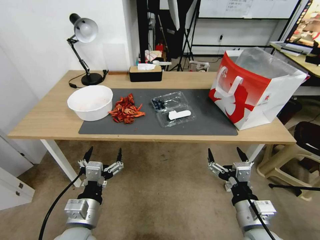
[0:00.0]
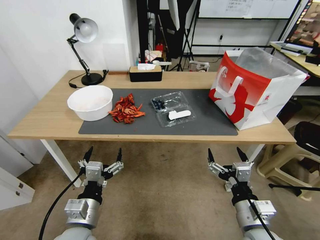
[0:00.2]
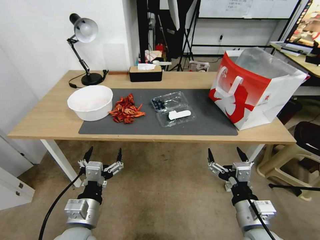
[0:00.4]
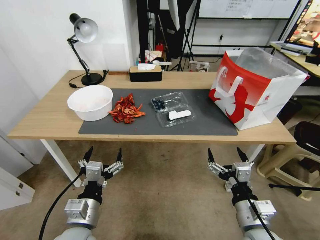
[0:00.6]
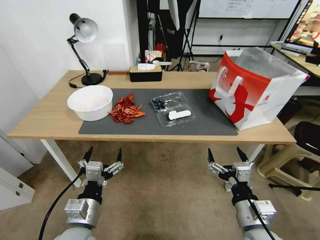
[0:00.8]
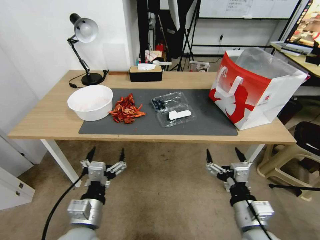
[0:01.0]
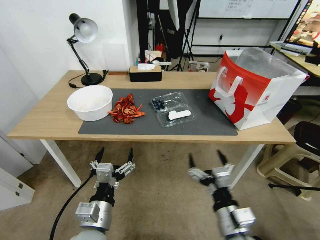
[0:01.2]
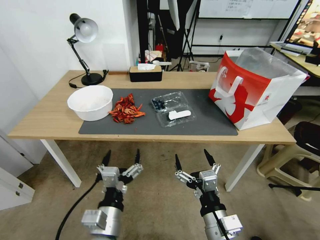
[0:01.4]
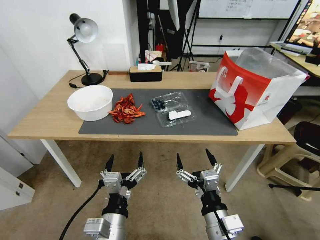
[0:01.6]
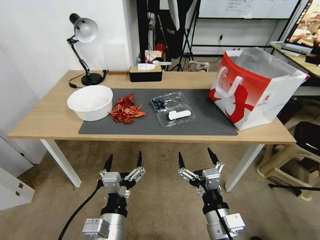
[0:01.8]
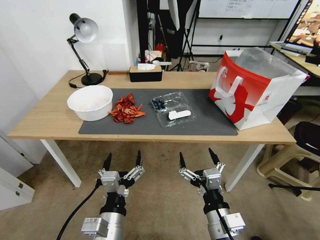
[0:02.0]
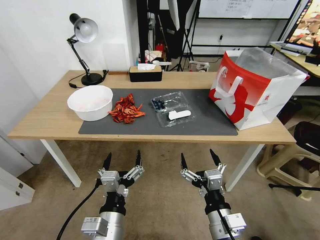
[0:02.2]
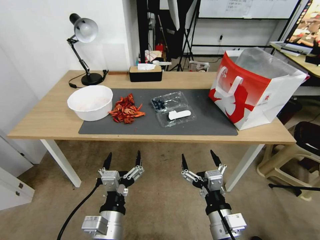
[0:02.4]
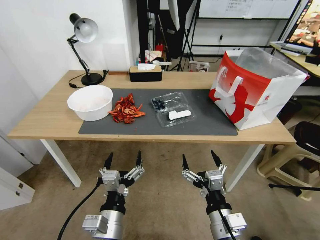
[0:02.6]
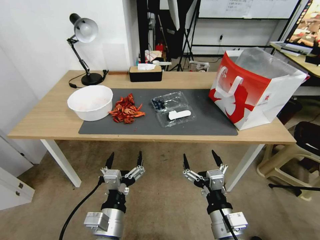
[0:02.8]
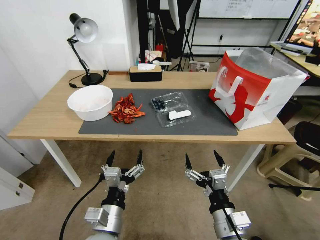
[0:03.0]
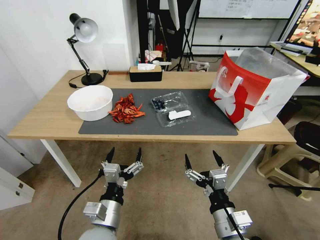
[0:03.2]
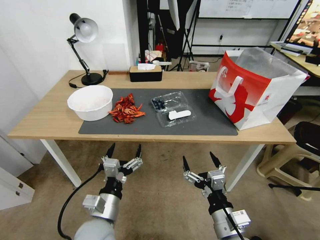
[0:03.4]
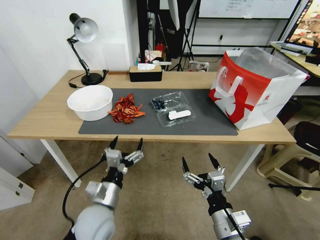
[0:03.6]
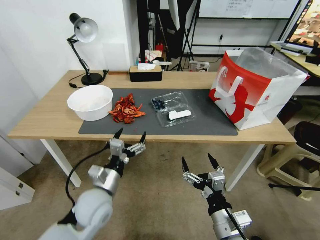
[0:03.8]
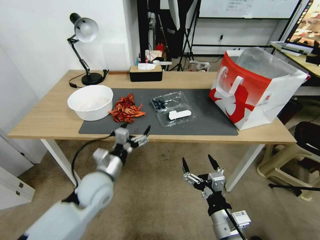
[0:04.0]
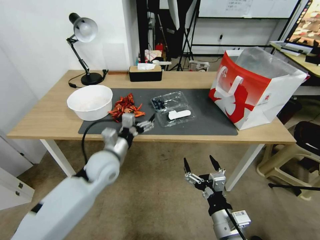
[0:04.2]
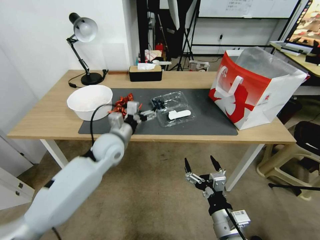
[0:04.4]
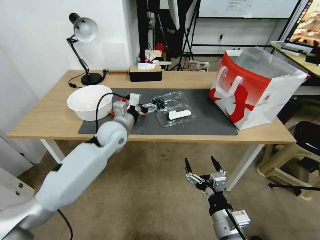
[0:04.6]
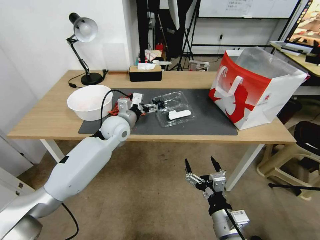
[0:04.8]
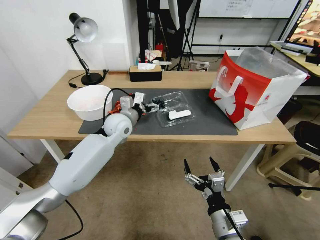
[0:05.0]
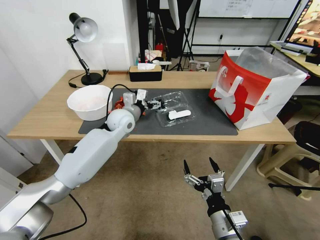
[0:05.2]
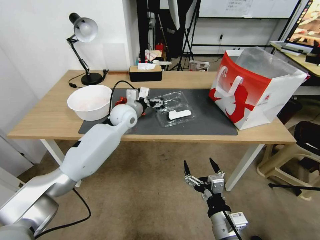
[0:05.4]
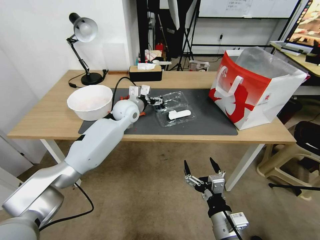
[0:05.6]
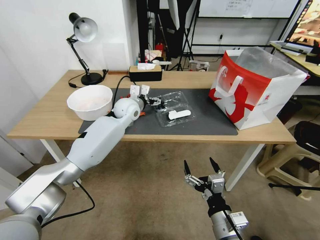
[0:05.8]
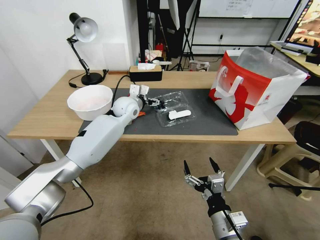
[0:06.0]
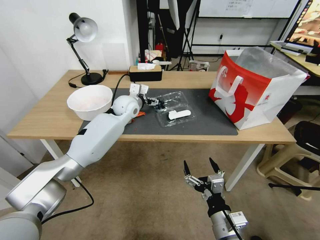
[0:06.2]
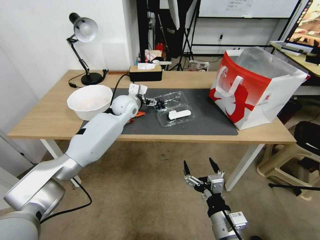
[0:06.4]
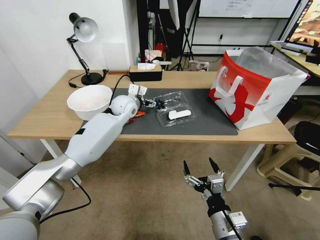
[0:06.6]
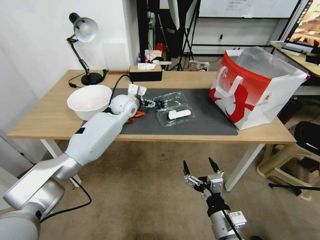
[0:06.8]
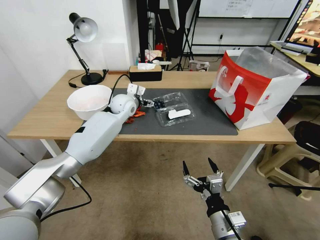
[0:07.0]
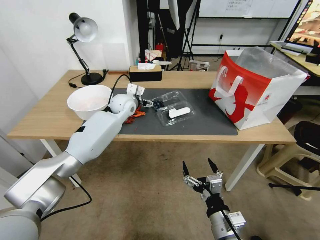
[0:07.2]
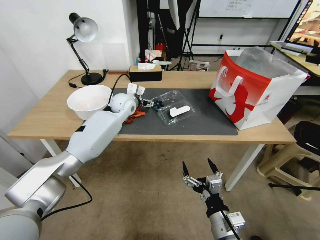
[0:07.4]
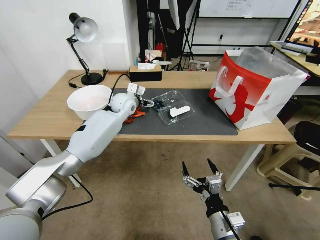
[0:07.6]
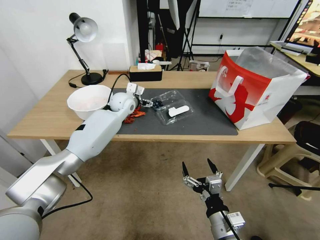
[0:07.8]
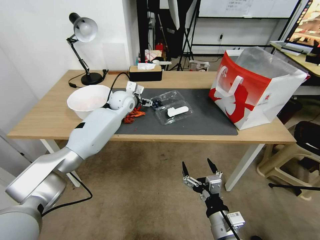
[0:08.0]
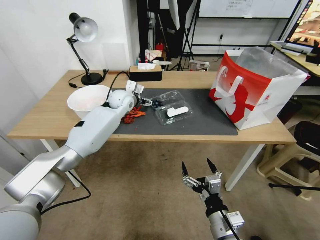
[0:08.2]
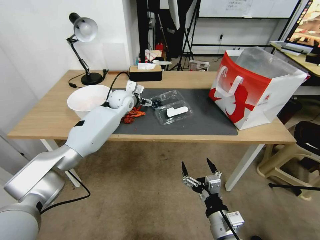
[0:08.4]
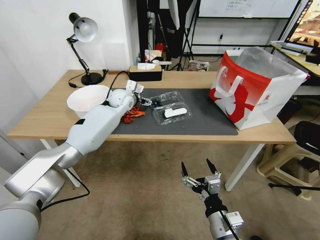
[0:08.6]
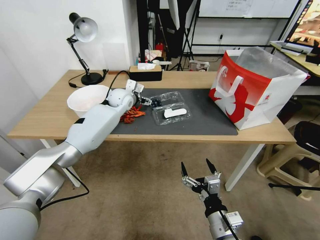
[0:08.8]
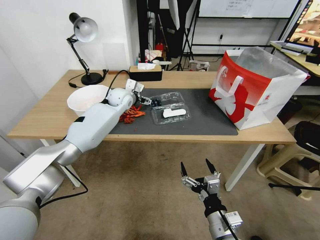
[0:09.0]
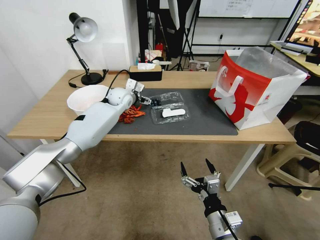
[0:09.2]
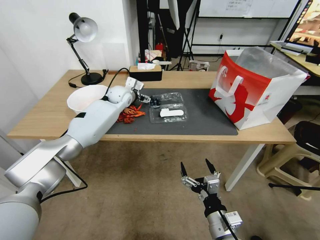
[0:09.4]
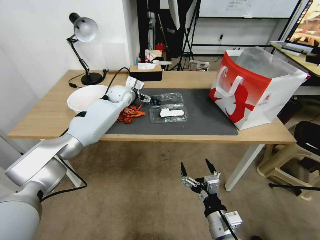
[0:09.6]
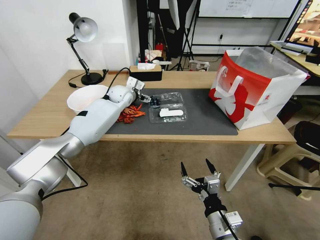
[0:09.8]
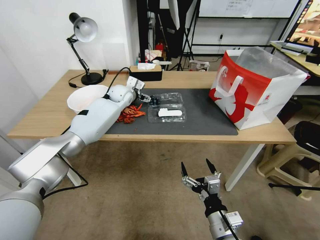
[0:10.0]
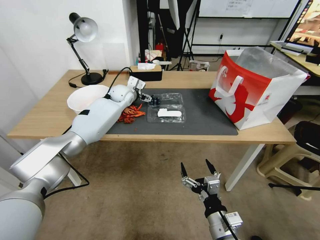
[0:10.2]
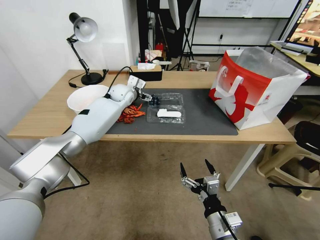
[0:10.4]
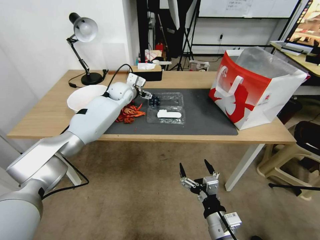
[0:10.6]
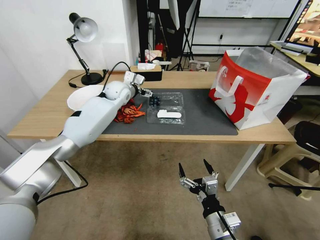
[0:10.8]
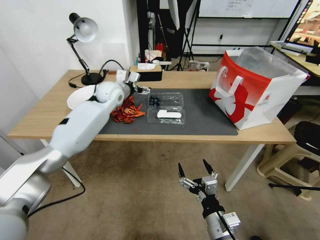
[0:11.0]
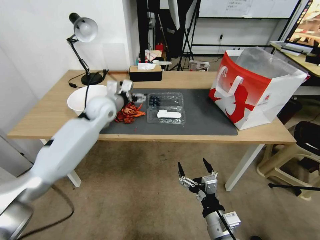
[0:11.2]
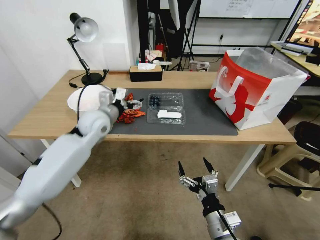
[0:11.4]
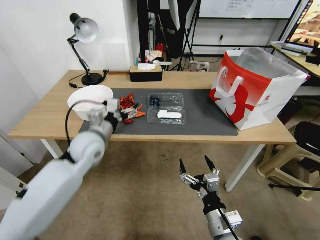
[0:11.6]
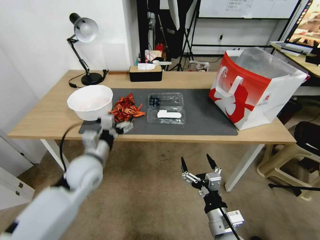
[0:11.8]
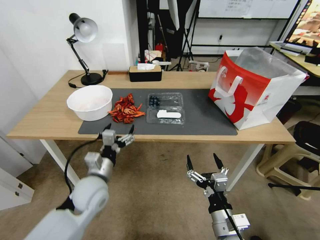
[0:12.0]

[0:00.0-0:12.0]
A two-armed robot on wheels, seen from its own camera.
Task of the whole recording: Close the takeout container lid, then place the container into the takeout bag.
0:01.6 to 0:03.0: The grippers stay close to where they were, moving slightly.
0:03.0 to 0:04.4: The left gripper is displaced forward by roughly 25 cm.
0:04.4 to 0:06.0: The left gripper travels forward by about 15 cm.
0:06.0 to 0:07.6: The grippers stay close to where they were, moving slightly.
0:07.6 to 0:10.4: The grippers stay close to where they were, moving slightly.
0:10.4 to 0:12.0: The left gripper moves backward, about 35 cm.

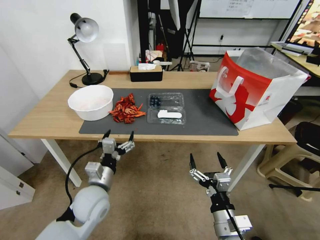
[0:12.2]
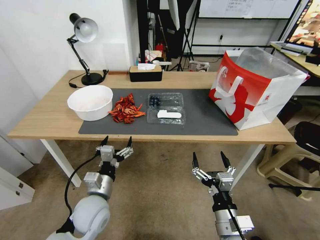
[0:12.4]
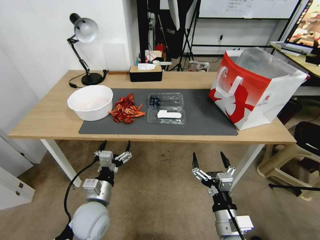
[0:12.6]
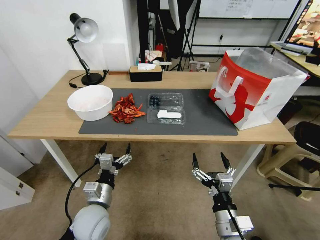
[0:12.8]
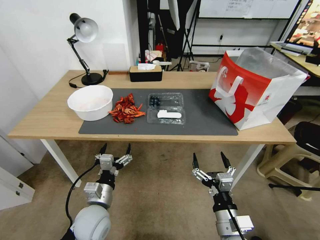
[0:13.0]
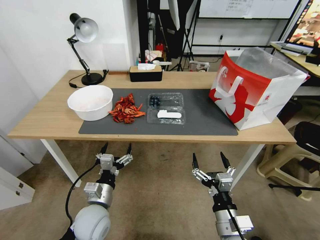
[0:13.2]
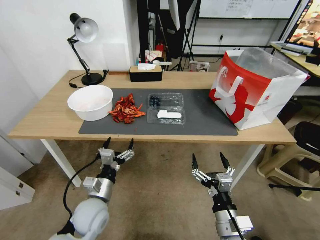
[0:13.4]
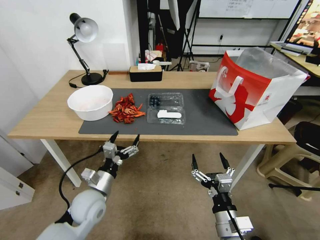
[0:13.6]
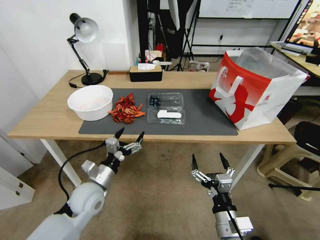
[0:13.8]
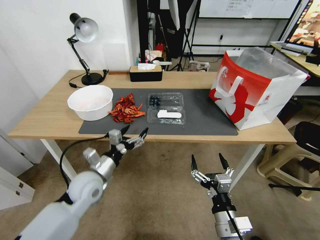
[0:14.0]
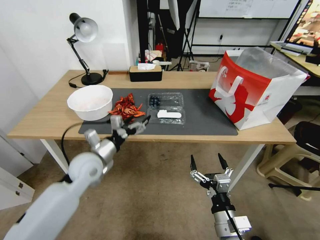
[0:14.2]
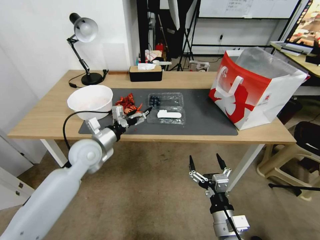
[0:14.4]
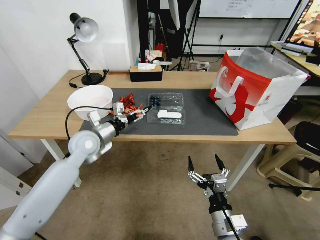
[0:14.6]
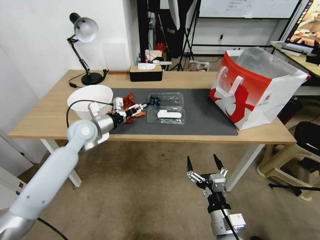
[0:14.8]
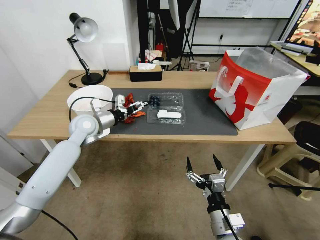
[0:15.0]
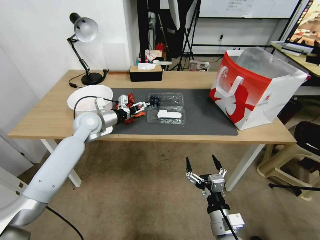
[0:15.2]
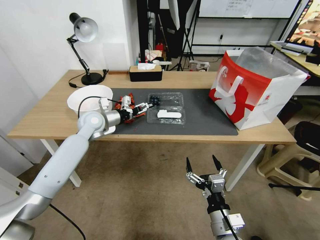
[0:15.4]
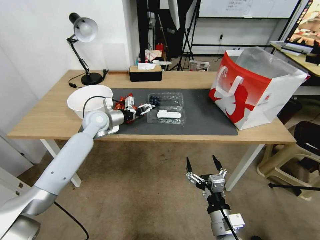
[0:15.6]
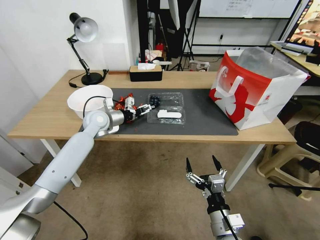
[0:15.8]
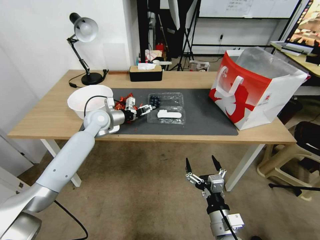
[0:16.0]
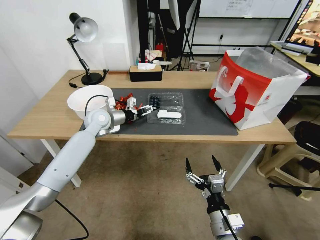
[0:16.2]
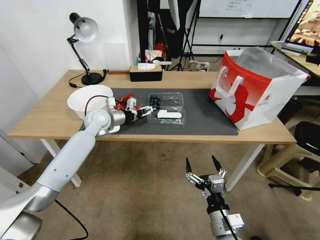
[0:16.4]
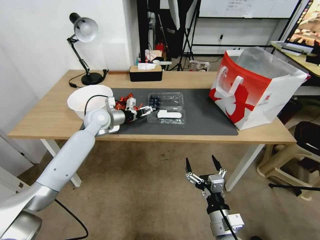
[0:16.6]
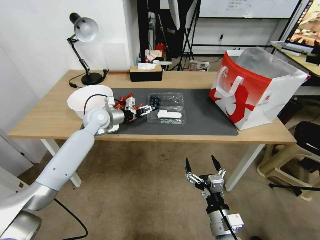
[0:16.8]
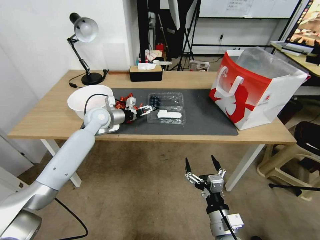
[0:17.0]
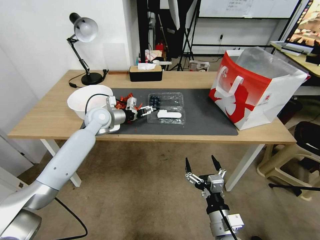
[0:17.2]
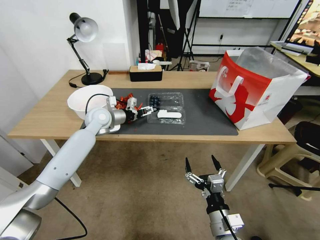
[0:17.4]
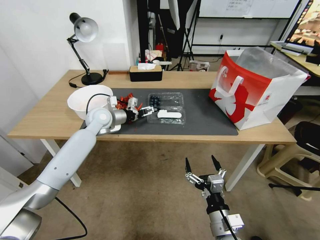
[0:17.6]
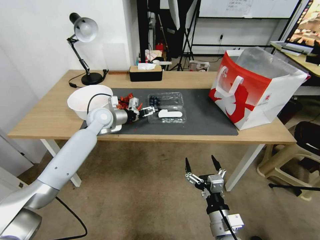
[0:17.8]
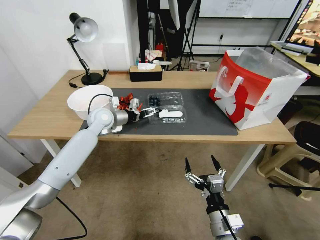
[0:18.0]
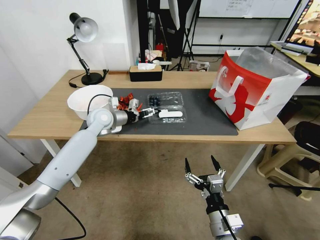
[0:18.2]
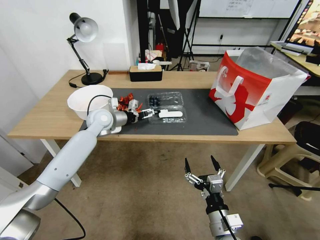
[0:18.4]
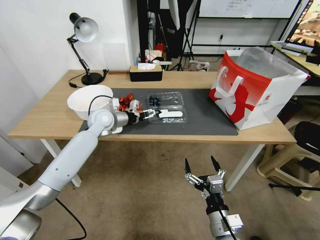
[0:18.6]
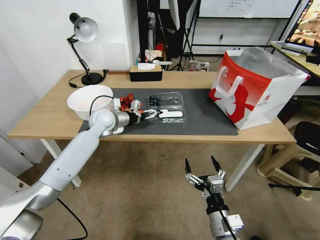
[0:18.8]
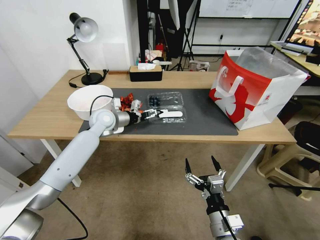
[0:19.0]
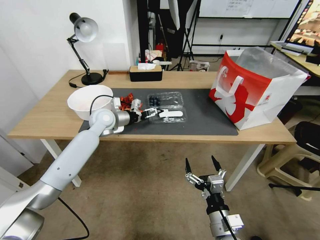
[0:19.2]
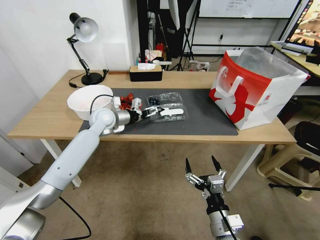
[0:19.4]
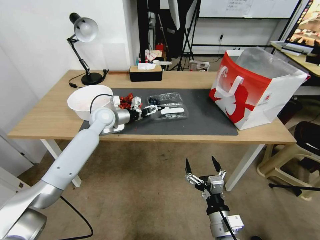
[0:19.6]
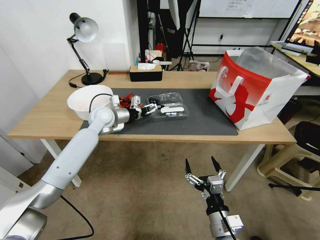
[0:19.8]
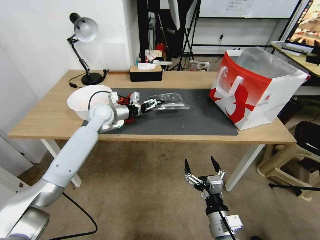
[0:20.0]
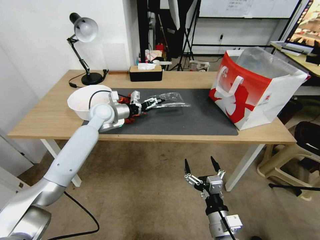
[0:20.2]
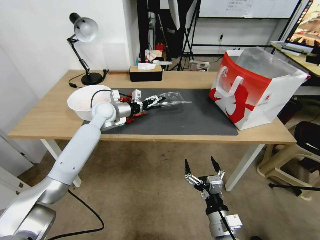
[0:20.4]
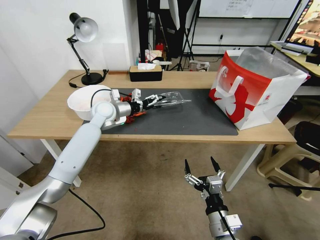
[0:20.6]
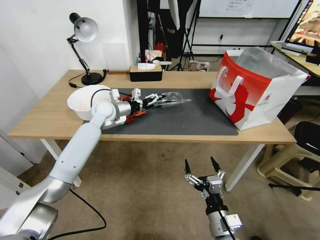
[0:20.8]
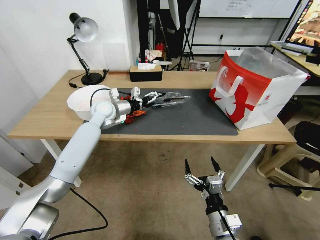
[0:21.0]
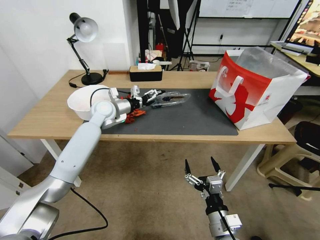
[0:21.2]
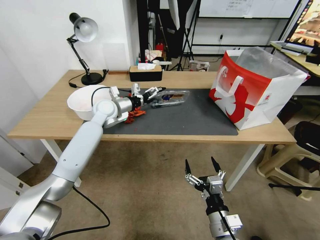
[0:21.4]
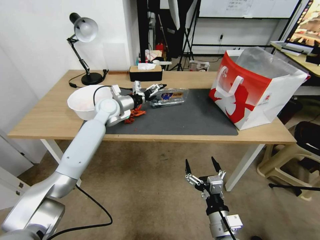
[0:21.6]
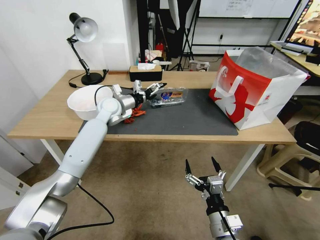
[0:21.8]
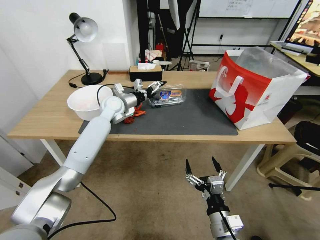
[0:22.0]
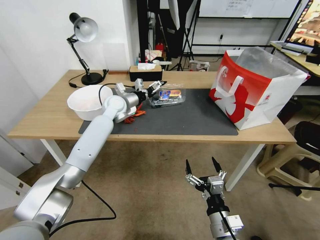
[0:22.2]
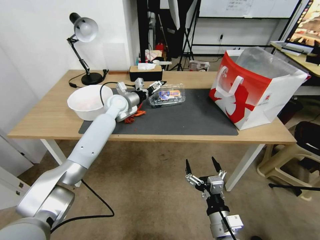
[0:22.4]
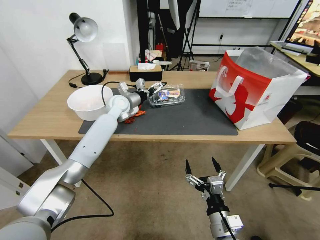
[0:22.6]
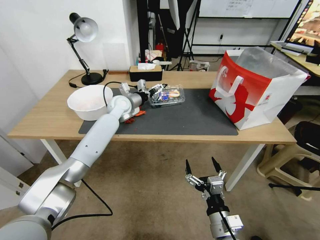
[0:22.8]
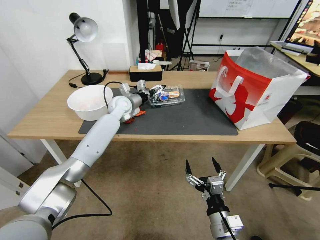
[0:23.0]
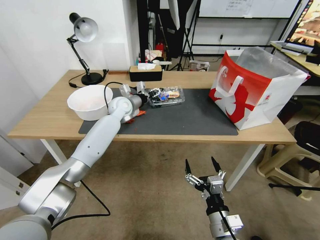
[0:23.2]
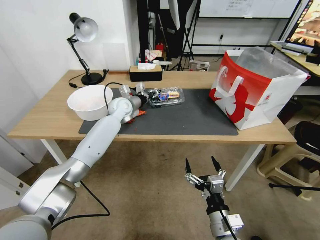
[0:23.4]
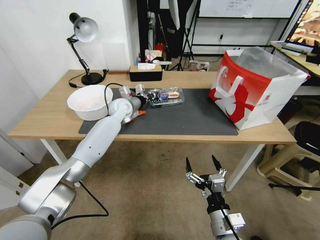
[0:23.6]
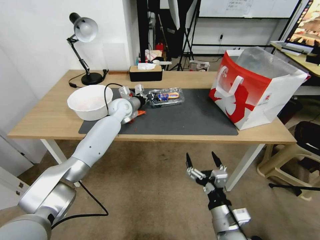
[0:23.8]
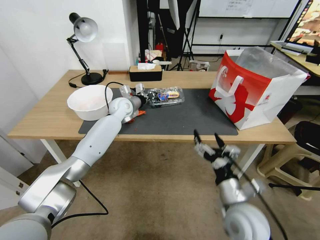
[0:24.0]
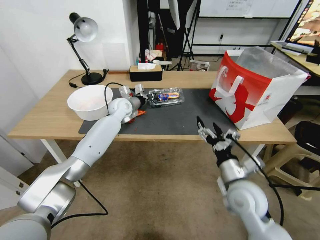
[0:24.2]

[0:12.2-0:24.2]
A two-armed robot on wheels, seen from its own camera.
Task of the whole recording: Close the takeout container lid, then place the container into the takeout bag.
0:13.8 to 0:15.2: The left gripper moves forward and upward, about 25 cm.
0:15.2 to 0:16.6: The grippers move only a little.
0:16.6 to 0:18.2: The two grippers keep their place.
0:18.2 to 0:21.2: The grippers make only small movements.
0:21.2 to 0:22.6: The left gripper moves about 5 cm.
0:22.6 to 0:24.2: The left gripper closes up. The right gripper is displaced forward and upward by some 15 cm.
